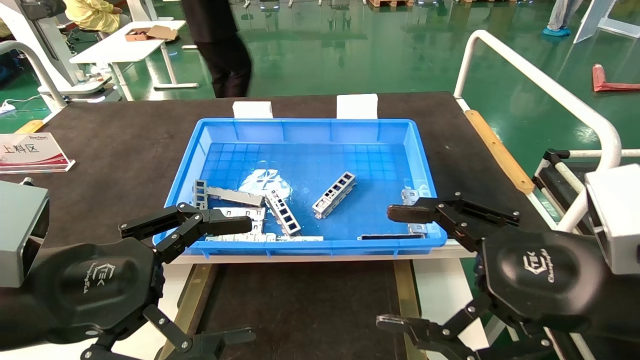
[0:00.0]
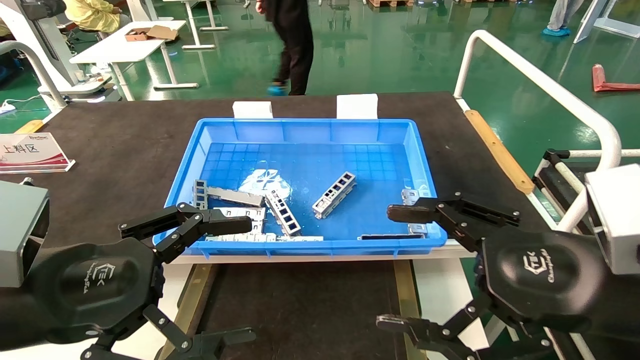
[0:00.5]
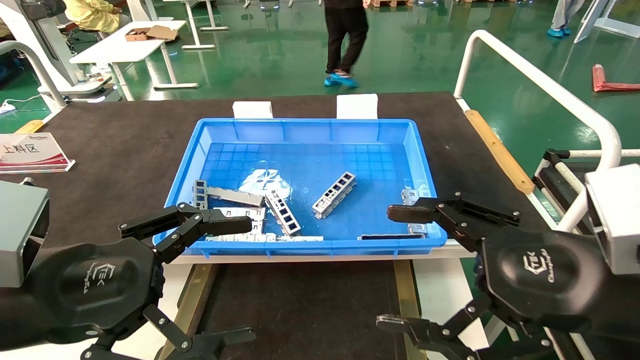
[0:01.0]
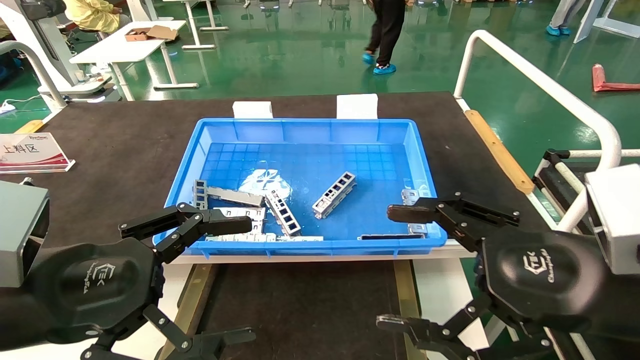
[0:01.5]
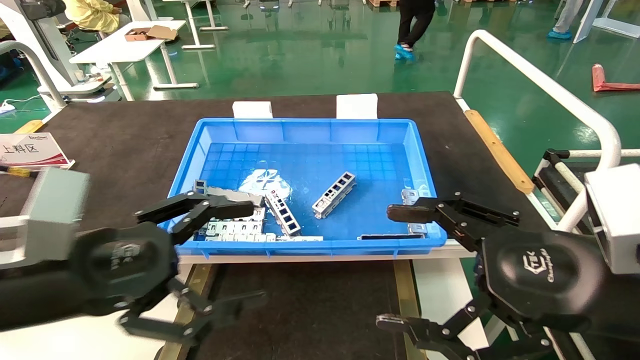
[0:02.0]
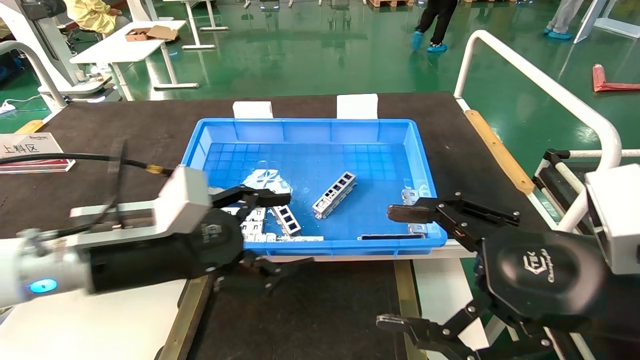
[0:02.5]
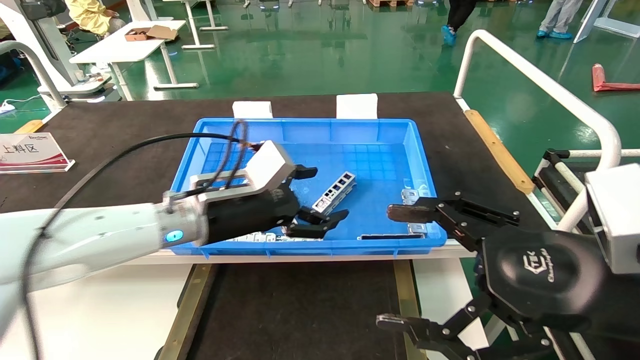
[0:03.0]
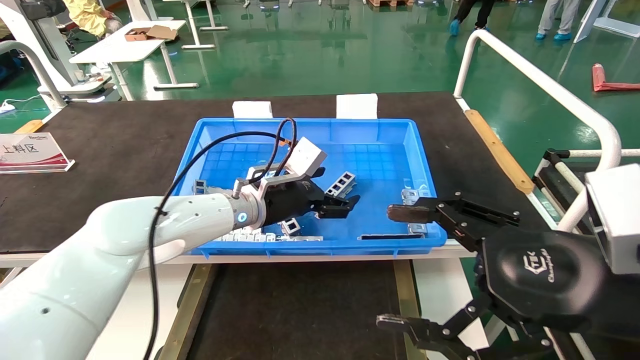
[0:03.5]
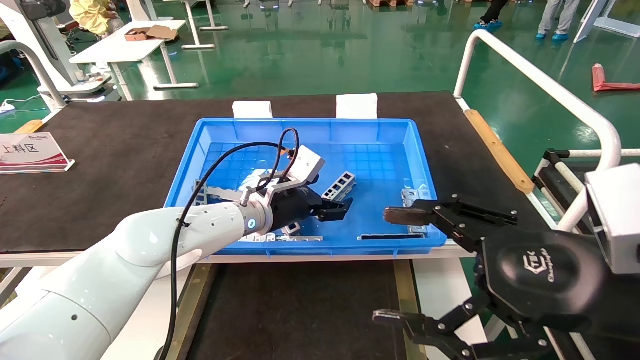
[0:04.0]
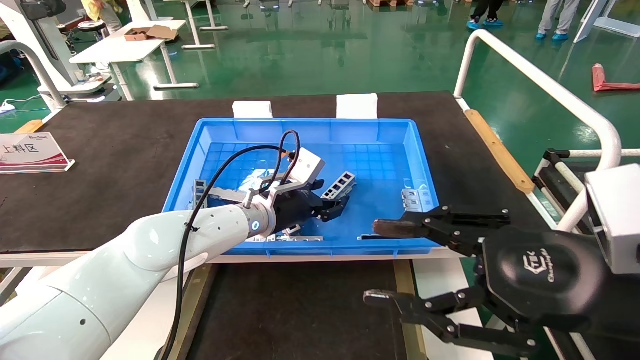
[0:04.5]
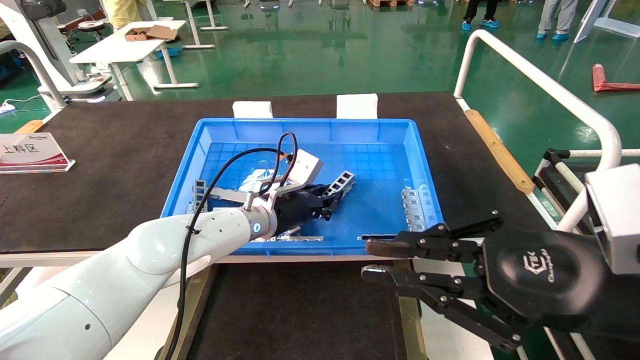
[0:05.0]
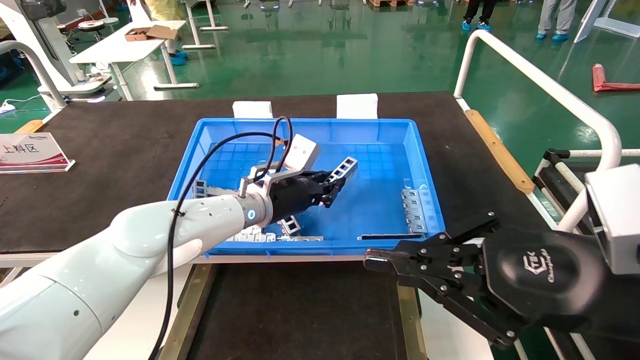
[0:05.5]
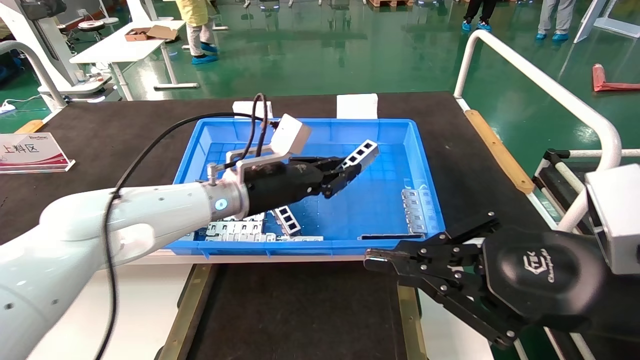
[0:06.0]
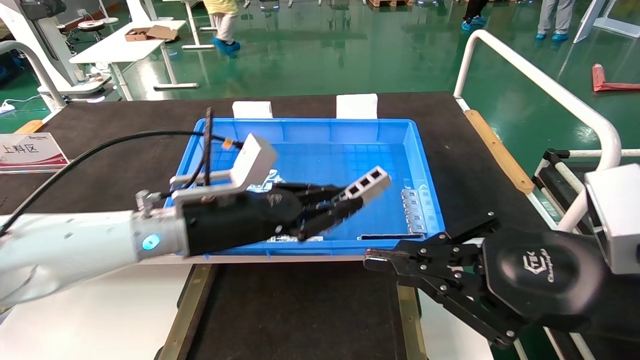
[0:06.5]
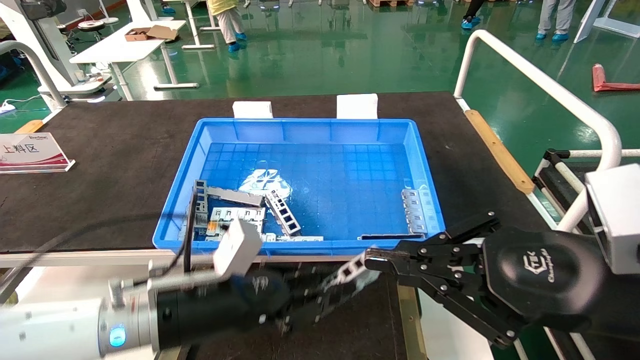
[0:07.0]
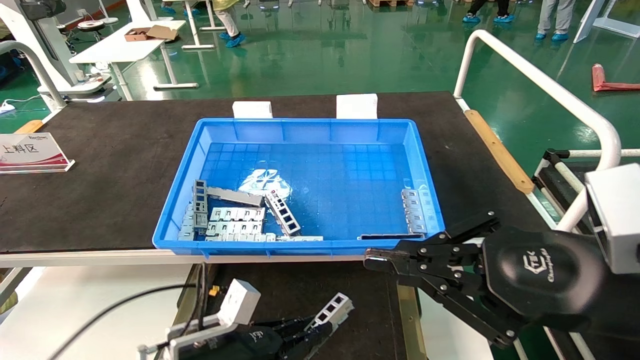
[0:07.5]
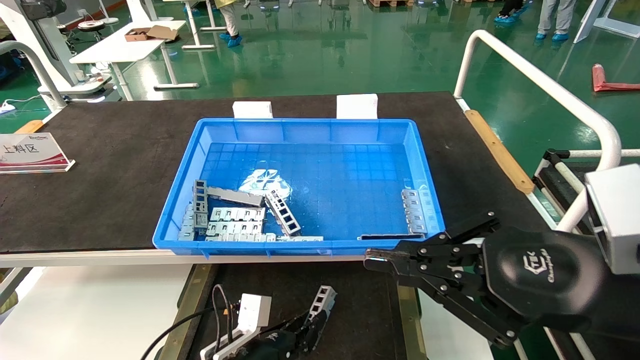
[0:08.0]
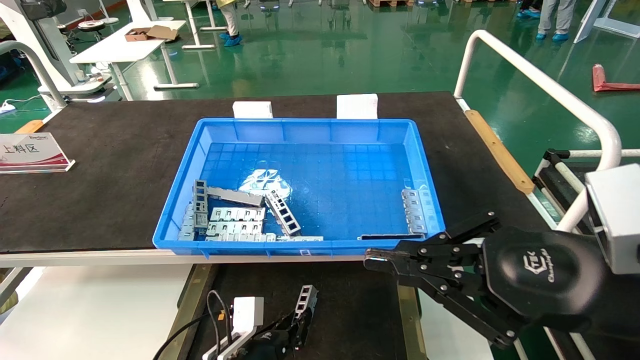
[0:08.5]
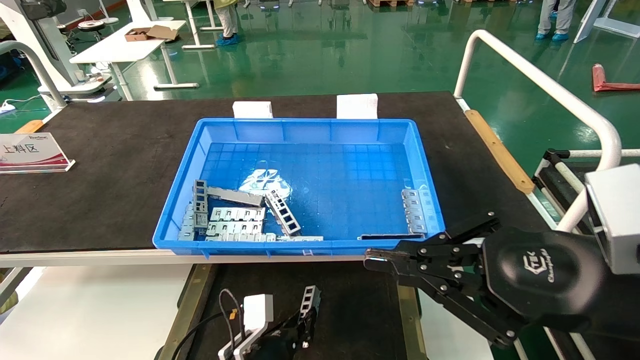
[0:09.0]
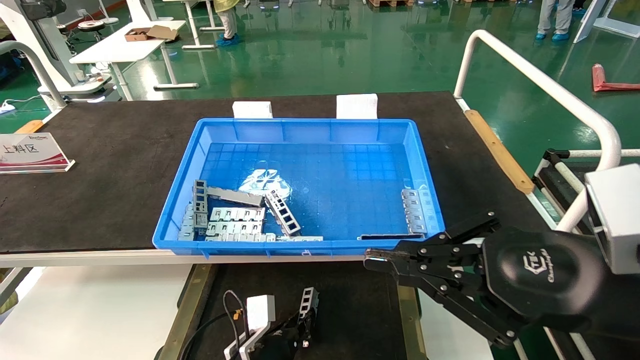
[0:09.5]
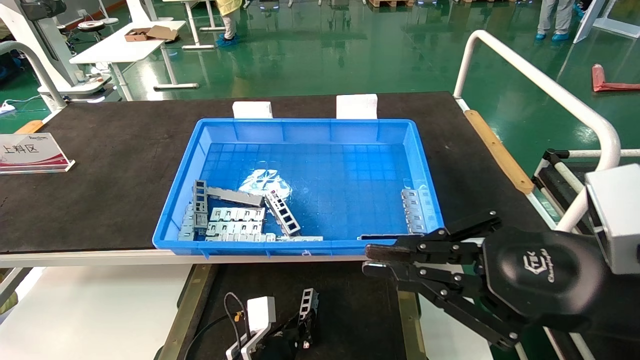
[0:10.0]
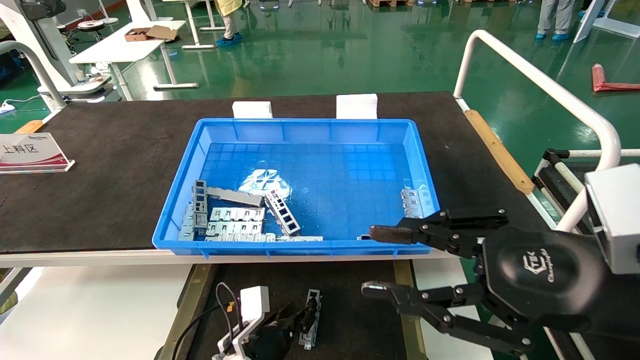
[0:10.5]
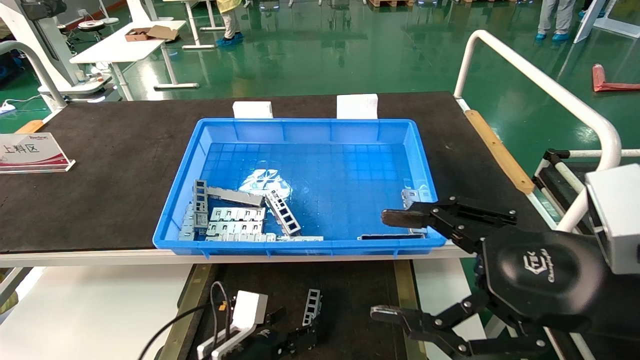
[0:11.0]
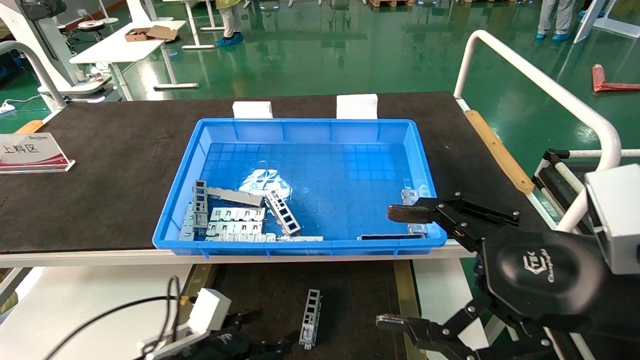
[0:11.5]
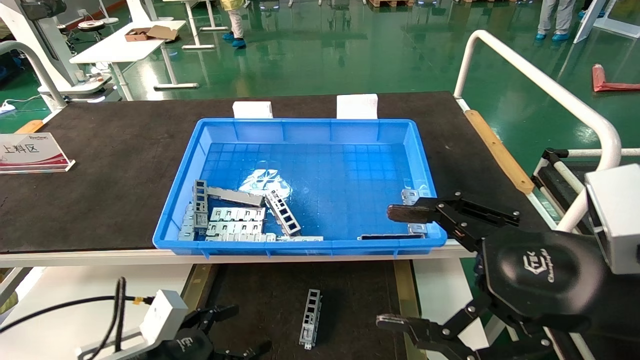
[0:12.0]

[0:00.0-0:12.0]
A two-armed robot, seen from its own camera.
Task of the whole recording: Grasp the part with one hand and place it on the black container.
Step, 0:02.5 to 0:04.5: Pick up the front USB bracket from the feeding area.
Step, 0:05.0 to 0:10.0: Place the front USB bracket into the box.
0:00.0 to 0:02.0: The grippers make only small movements.
0:02.0 to 0:04.0: The left gripper moves forward and to the right, some 30 cm.
0:04.0 to 0:06.0: The left gripper shifts by about 5 cm, and closes its fingers; the right gripper closes its fingers.
0:06.0 to 0:08.0: The left gripper goes about 30 cm downward and backward.
0:08.0 to 0:10.0: The left gripper is displaced downward by some 5 cm.
0:10.0 to 0:12.0: The left gripper heads to the left, upward and backward, covering approximately 20 cm, and opens. The right gripper opens.

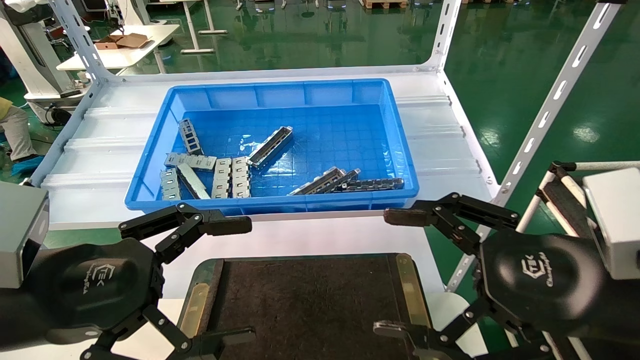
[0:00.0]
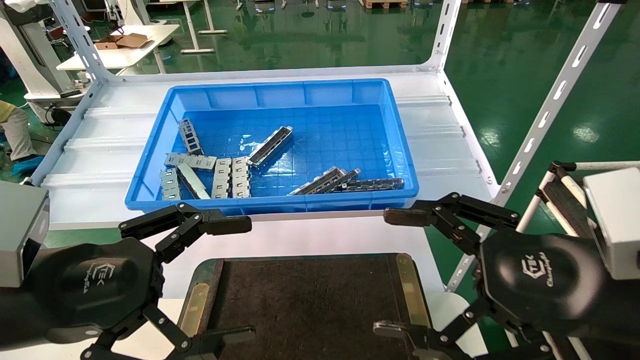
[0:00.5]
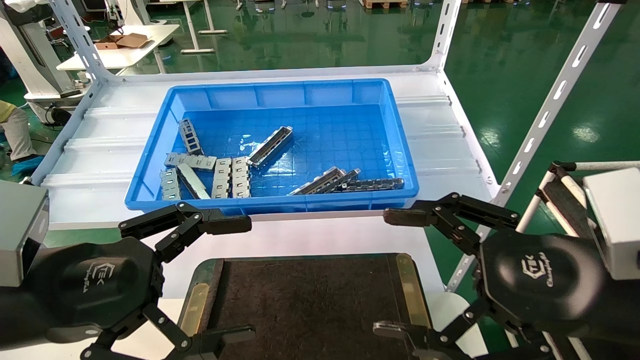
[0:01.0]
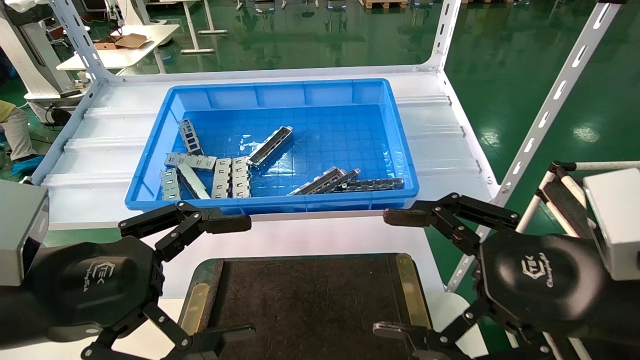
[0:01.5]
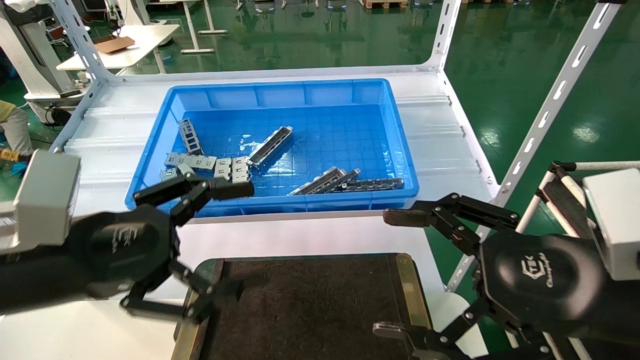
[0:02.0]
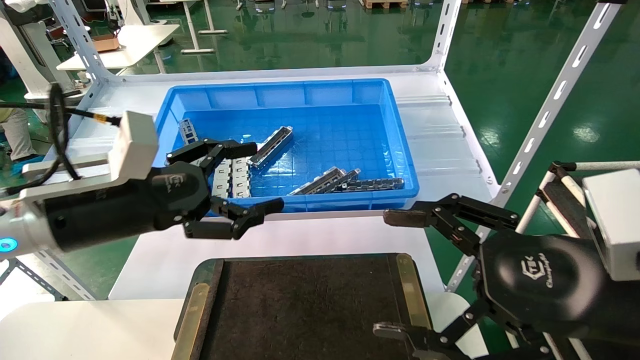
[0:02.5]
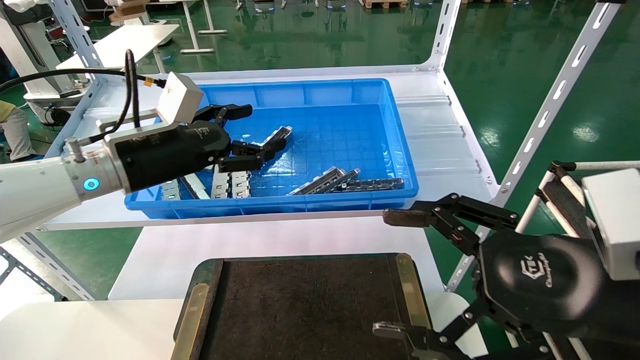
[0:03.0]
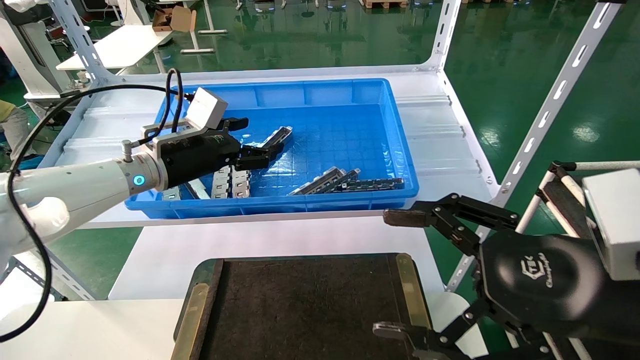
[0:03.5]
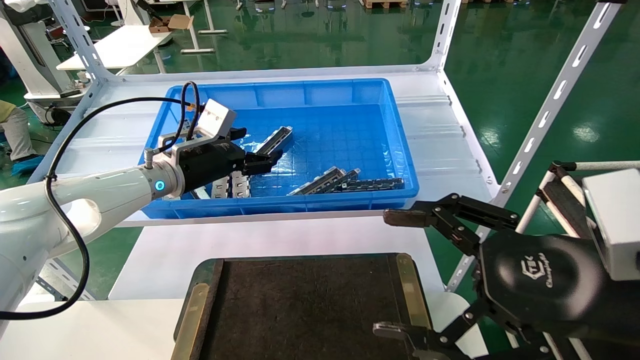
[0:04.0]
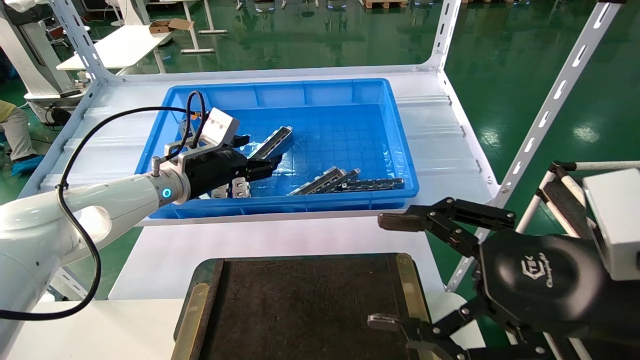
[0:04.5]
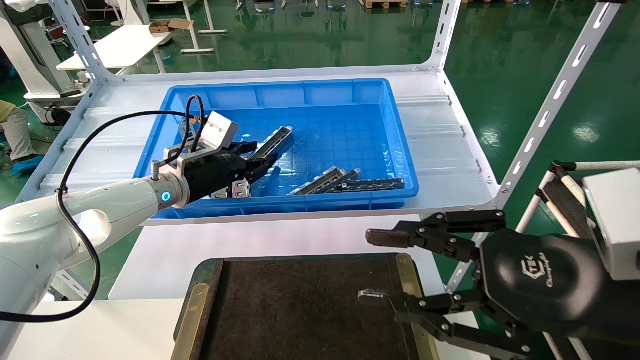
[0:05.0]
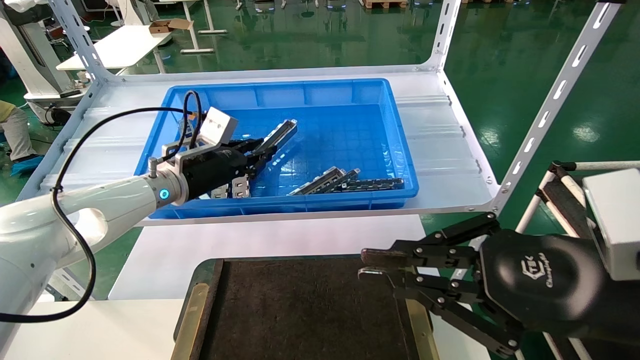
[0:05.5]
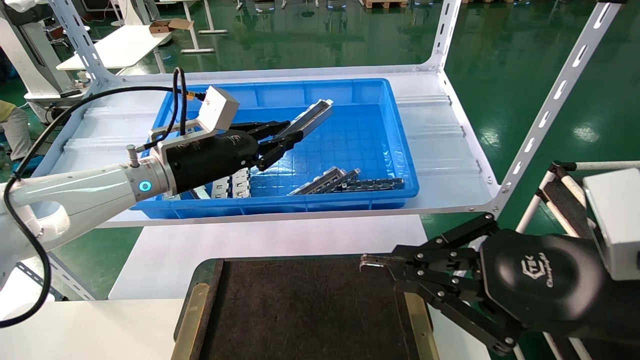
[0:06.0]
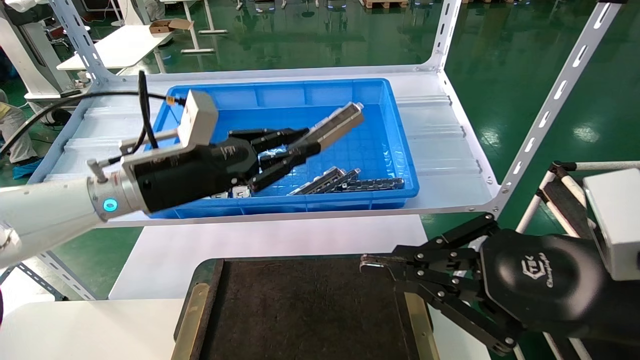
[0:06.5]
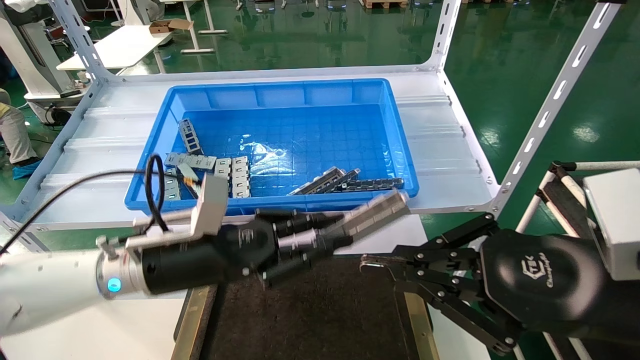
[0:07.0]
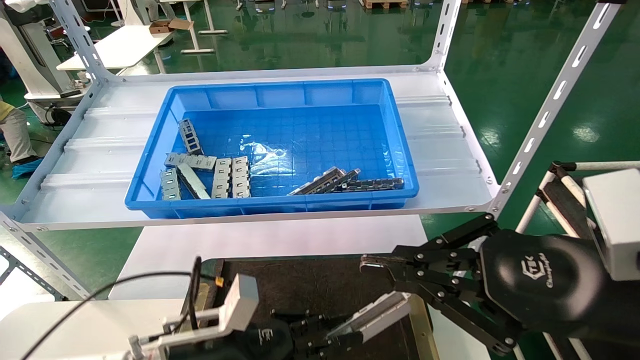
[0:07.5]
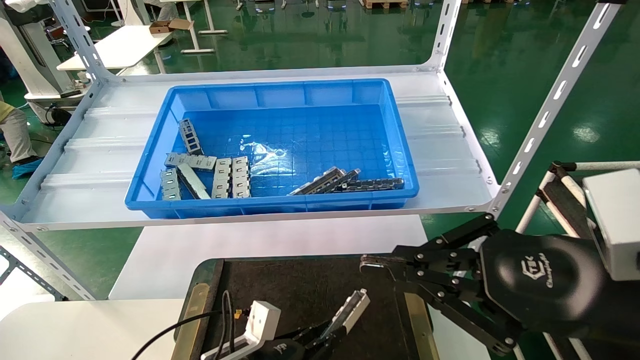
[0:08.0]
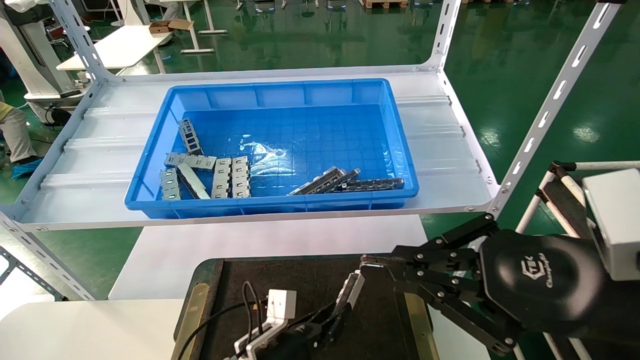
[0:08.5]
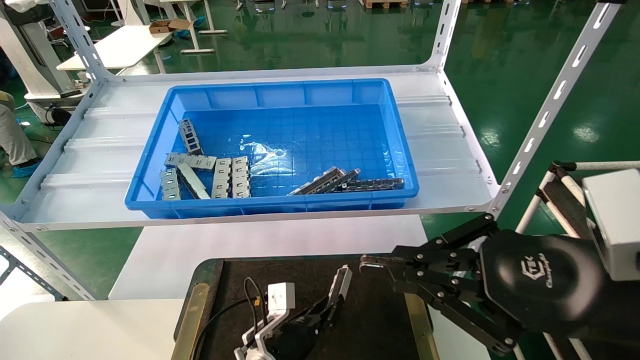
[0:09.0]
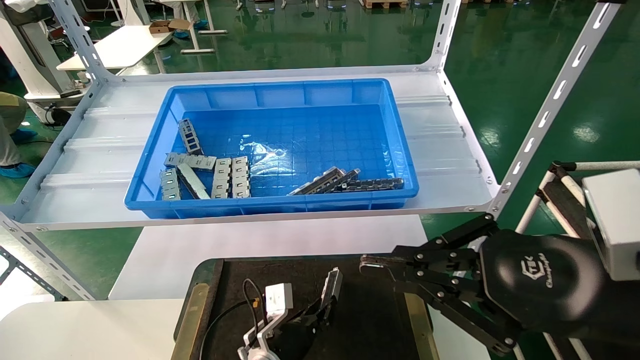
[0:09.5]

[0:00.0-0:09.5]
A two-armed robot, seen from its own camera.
Task of the whole recording: Grasp the part with one hand and place it on the black container.
Step, 0:02.0 to 0:05.5: Pick up the front USB bracket from the feeding area.
0:00.0 to 0:02.0: There are only small adjustments of the grippers.
0:02.0 to 0:04.0: The left gripper travels forward by some 25 cm.
0:04.0 to 0:05.5: The right gripper closes up. The left gripper closes.
0:05.5 to 0:07.5: The left gripper is displaced downward and backward by roughly 25 cm.
0:07.5 to 0:09.5: The left gripper heads downward, to the right and forward, covering some 15 cm.
